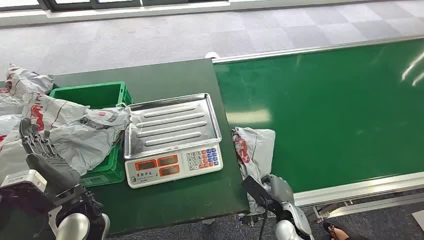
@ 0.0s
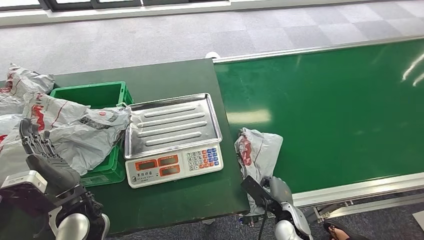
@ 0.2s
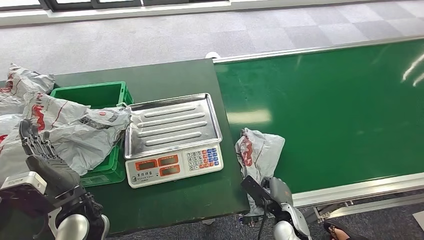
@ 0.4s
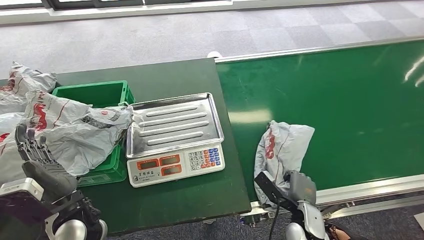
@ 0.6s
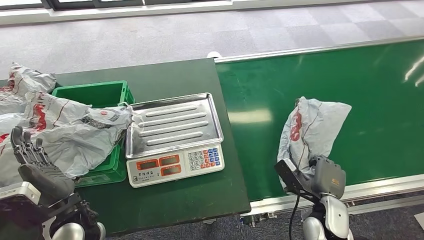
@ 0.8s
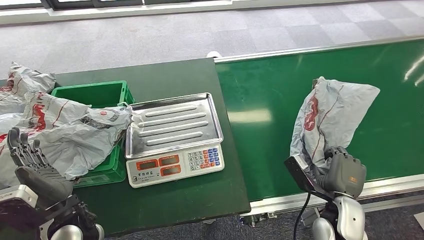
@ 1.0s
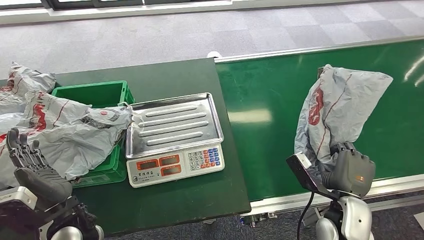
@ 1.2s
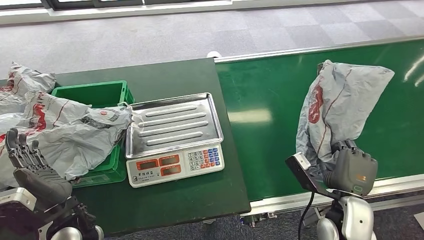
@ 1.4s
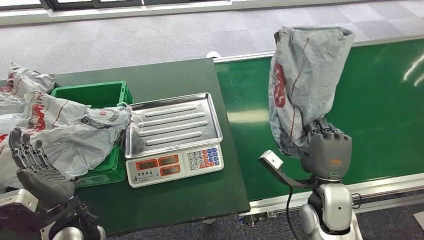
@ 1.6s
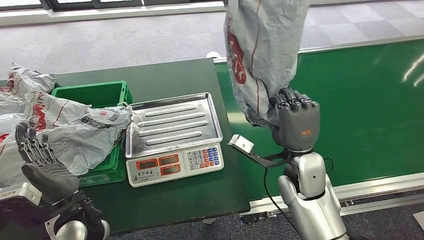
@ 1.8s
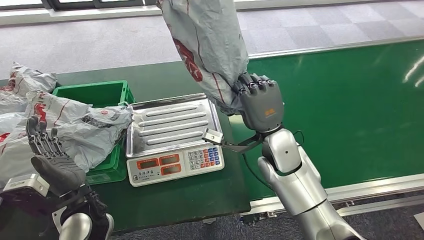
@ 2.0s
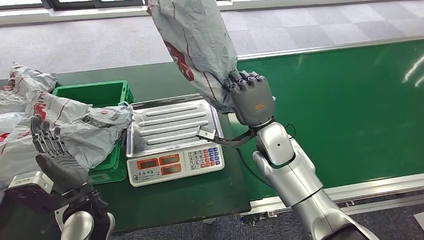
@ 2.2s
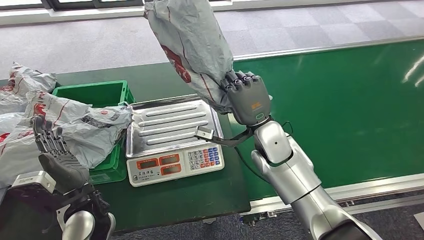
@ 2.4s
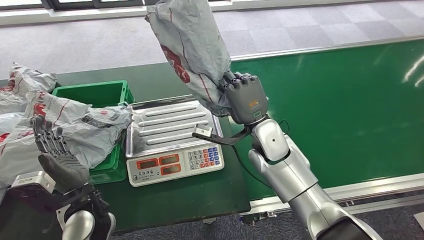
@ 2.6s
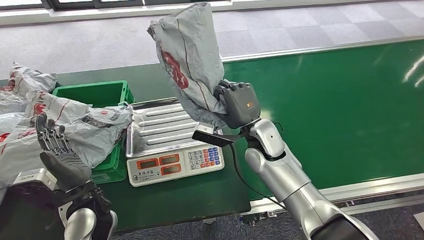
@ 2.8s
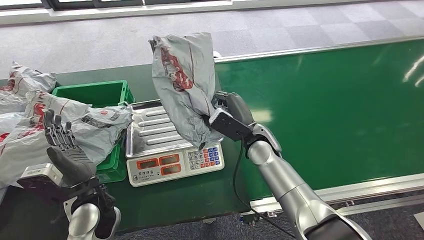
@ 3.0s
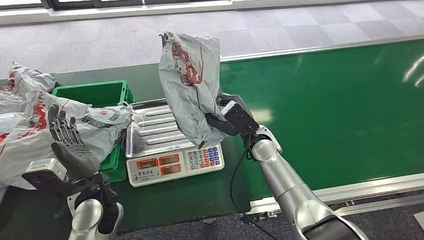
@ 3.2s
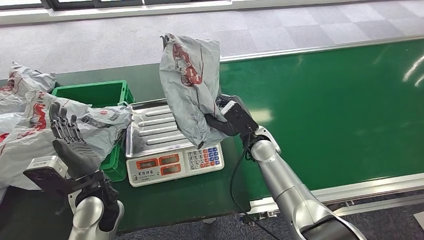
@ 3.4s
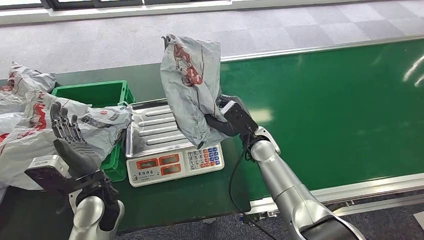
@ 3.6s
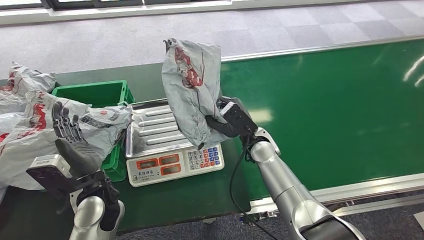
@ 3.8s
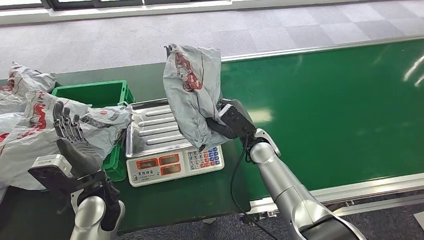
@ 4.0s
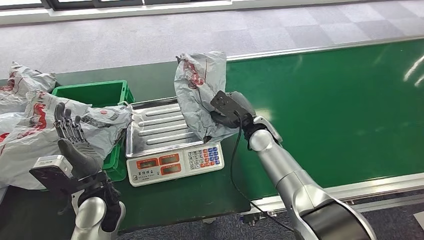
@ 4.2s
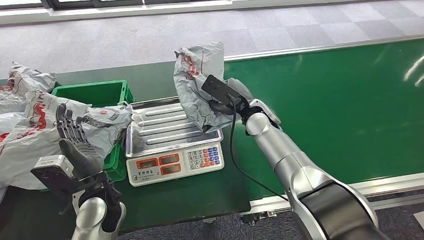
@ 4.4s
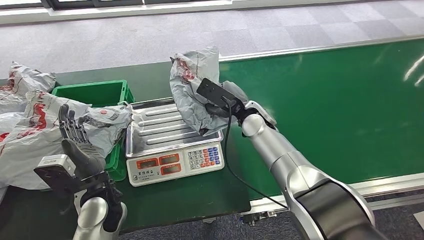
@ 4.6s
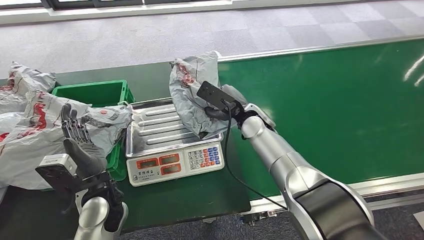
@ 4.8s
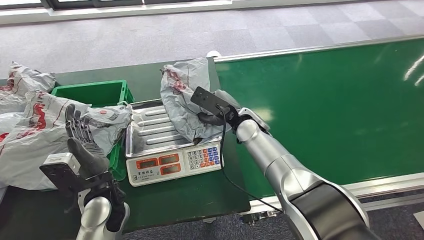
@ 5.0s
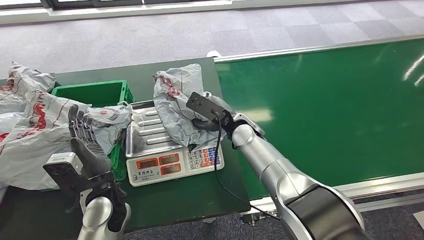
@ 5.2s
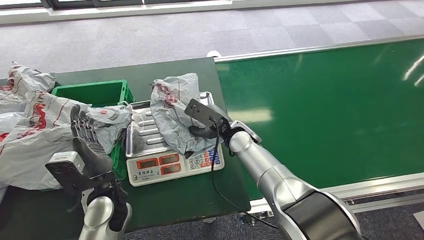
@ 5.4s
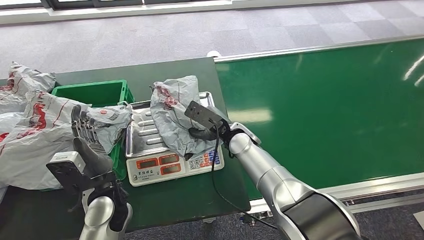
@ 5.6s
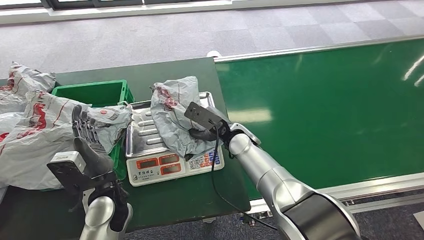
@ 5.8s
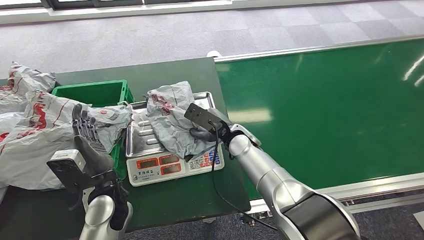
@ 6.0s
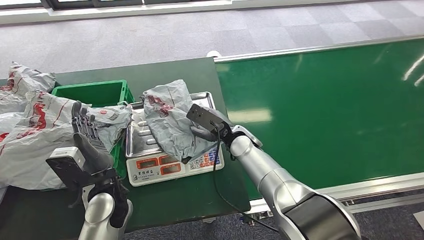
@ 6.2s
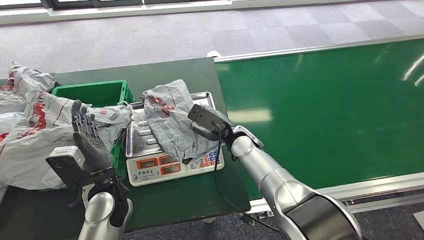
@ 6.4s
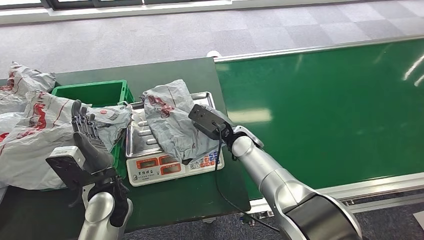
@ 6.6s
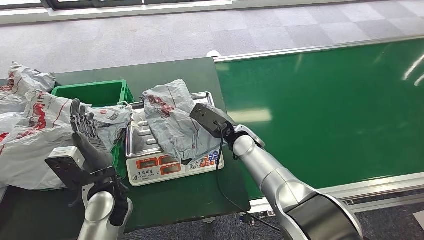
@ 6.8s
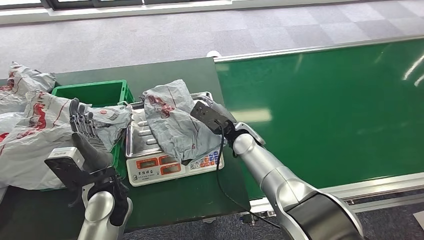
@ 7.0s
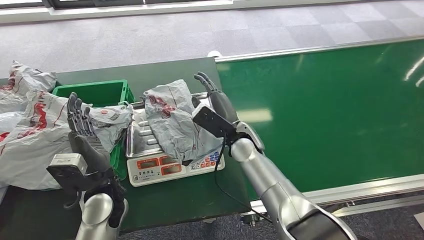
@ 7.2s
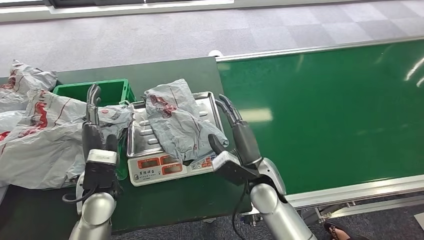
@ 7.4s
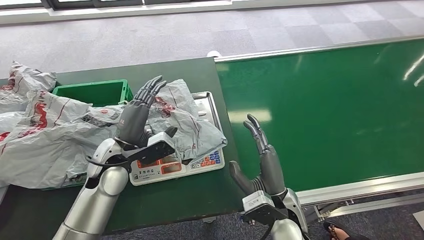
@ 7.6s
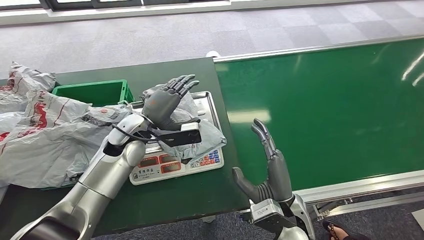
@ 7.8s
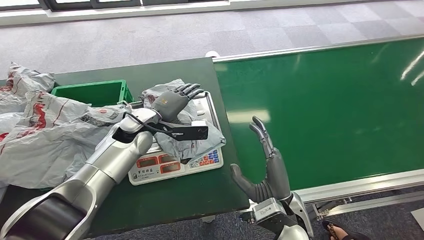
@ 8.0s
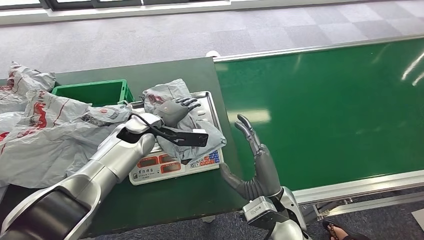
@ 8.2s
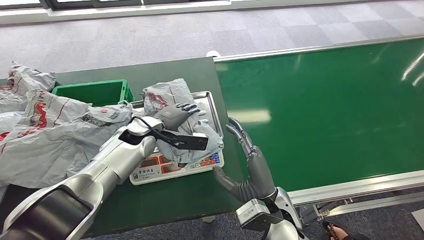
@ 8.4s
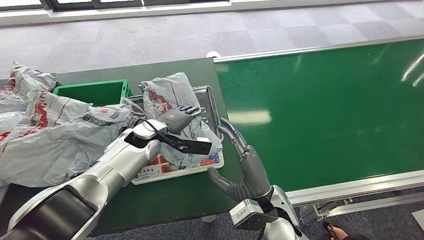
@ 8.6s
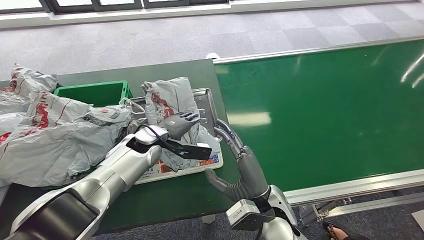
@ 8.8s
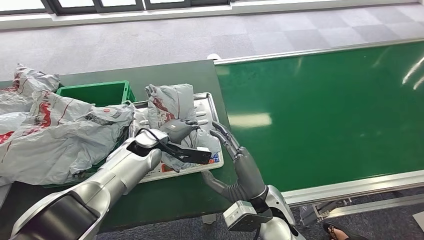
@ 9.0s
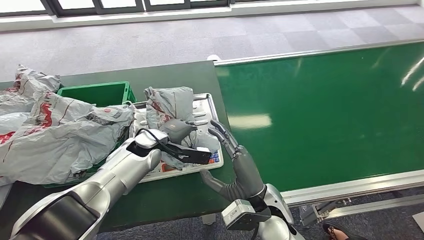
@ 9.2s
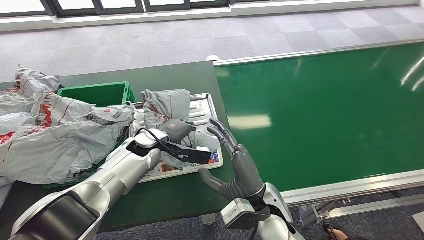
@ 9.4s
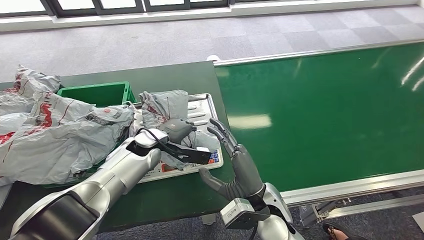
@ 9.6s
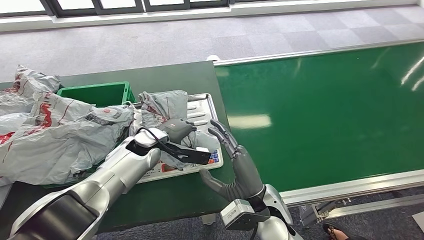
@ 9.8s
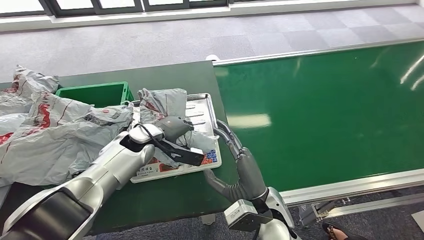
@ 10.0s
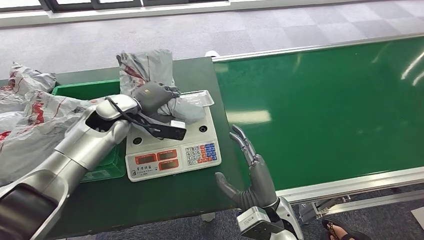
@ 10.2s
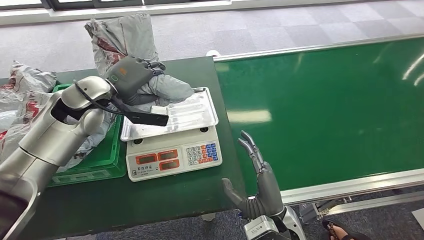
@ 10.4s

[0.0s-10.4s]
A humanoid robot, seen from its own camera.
Step, 0.0s to 1.4s: Pick up the package from the conveyor belt.
Step, 1.8s to 8.6s: Place the package onto the inbound machine.
3.0s to 4.4s: The right hand shifts by some 5 cm.

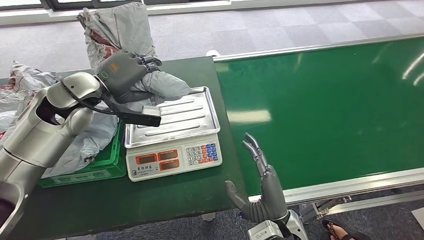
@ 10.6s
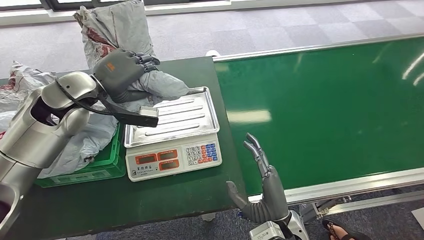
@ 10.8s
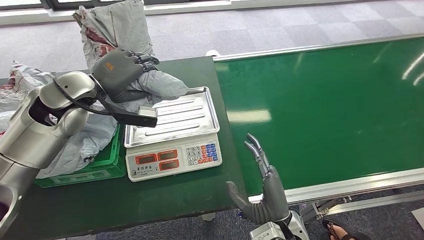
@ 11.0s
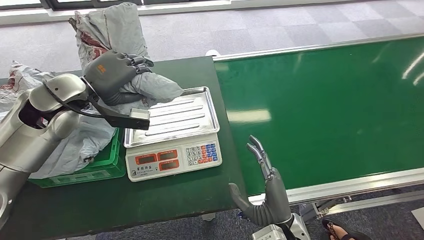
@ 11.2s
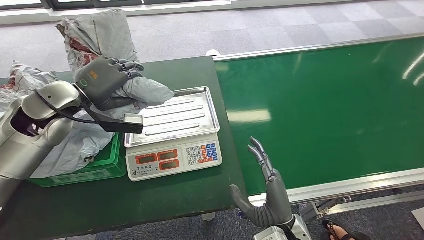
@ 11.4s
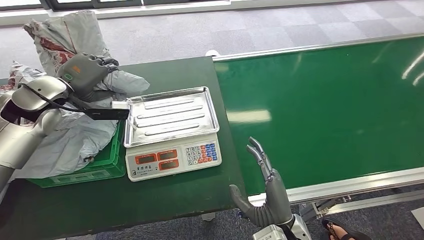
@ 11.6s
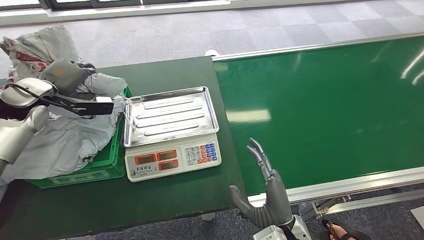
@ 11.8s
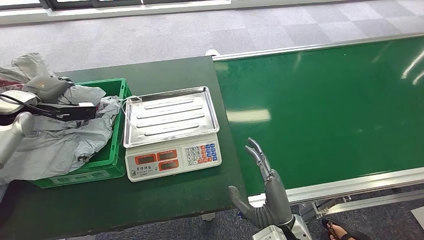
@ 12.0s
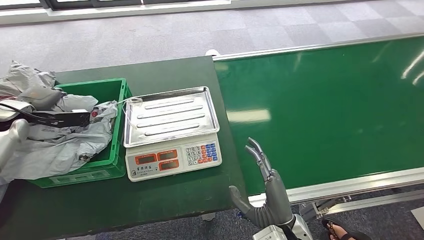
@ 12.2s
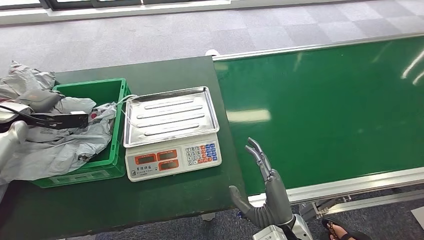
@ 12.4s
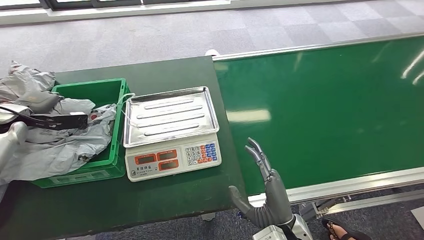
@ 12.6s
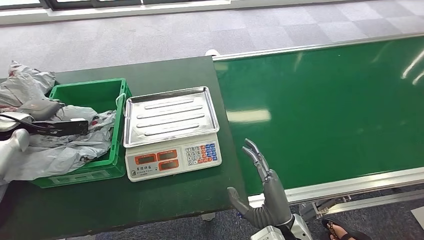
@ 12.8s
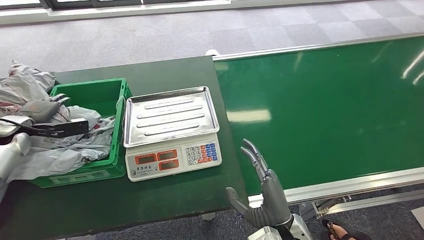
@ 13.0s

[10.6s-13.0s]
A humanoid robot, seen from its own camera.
Step, 11.2s to 13.0s: Place the package into the parcel locker.
11.8s to 13.0s: The left hand moves downward and to the left, about 15 cm.

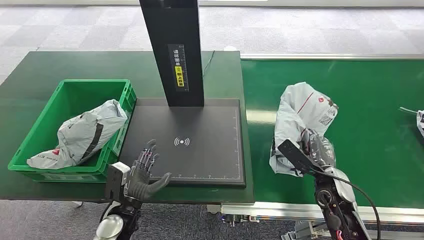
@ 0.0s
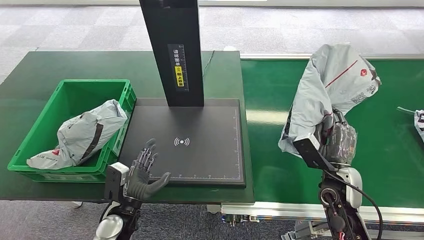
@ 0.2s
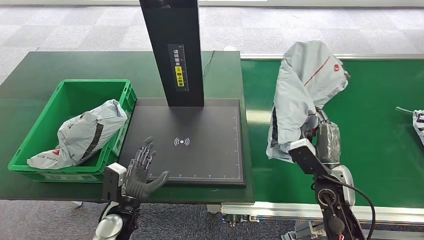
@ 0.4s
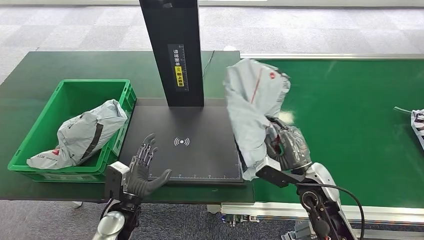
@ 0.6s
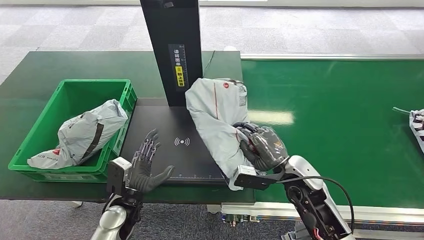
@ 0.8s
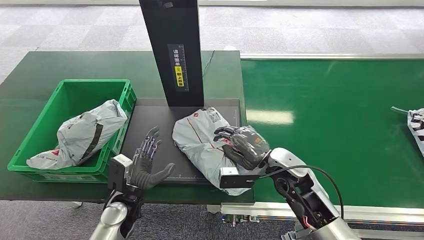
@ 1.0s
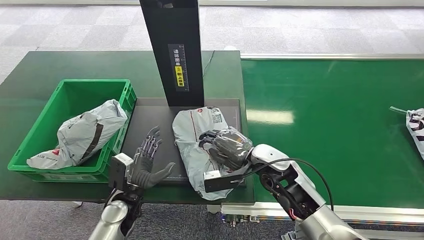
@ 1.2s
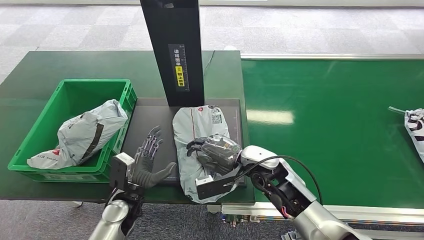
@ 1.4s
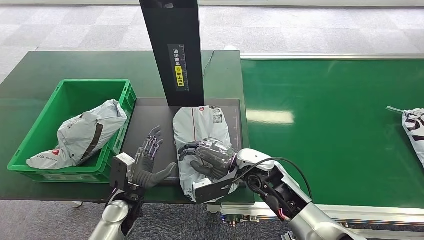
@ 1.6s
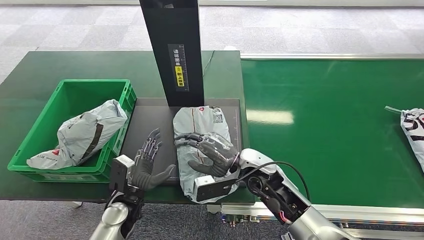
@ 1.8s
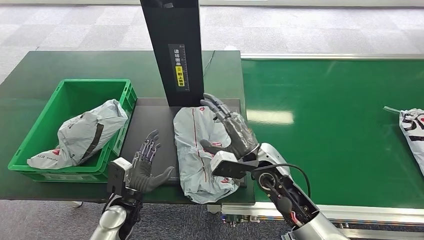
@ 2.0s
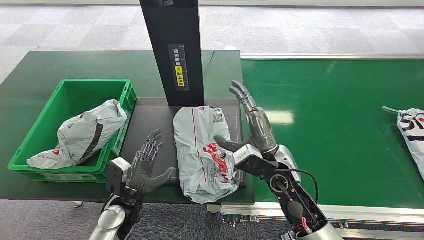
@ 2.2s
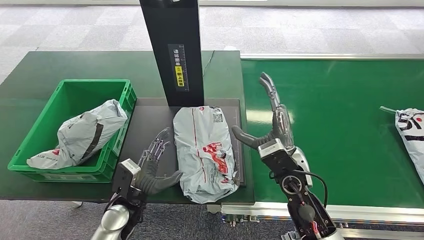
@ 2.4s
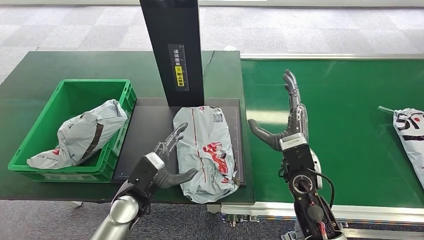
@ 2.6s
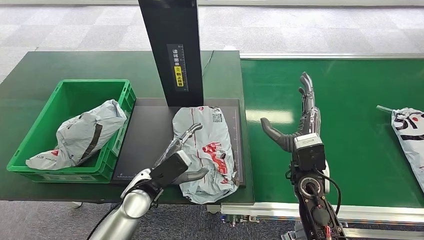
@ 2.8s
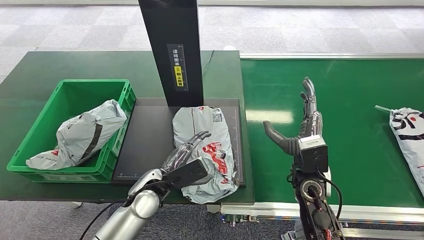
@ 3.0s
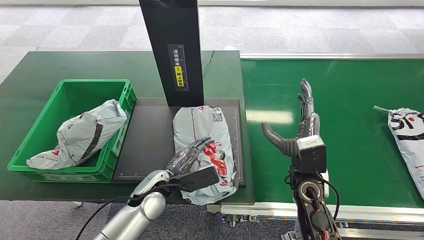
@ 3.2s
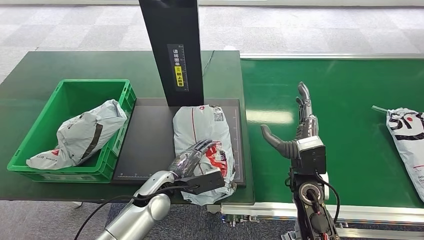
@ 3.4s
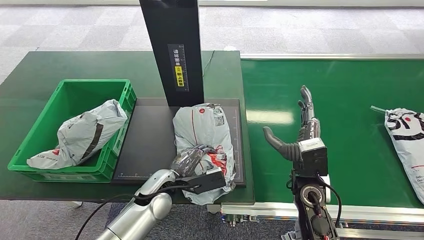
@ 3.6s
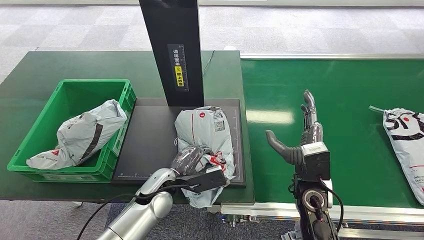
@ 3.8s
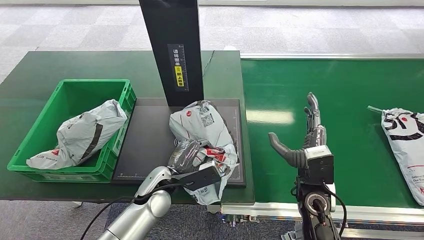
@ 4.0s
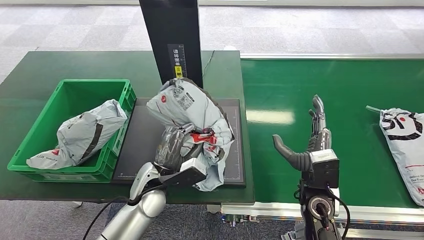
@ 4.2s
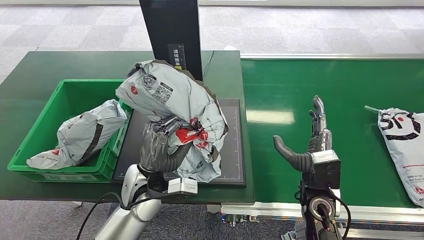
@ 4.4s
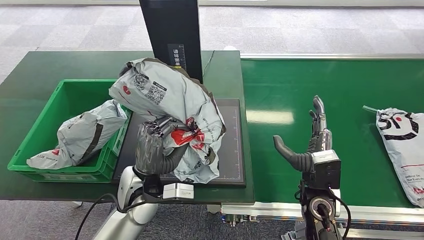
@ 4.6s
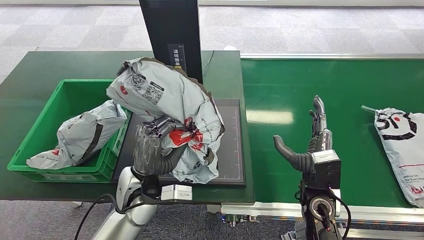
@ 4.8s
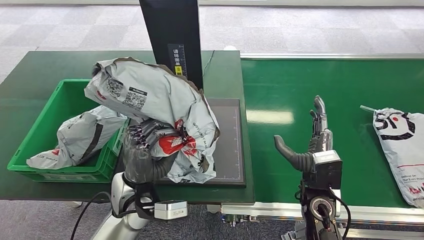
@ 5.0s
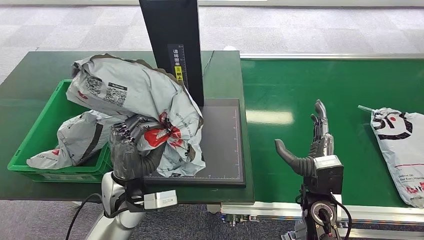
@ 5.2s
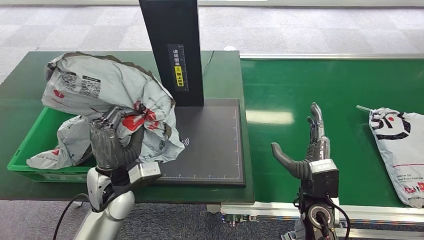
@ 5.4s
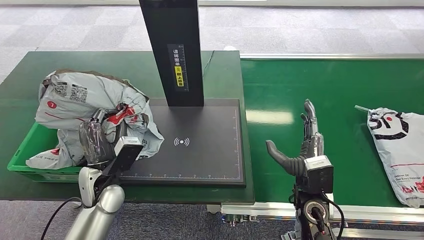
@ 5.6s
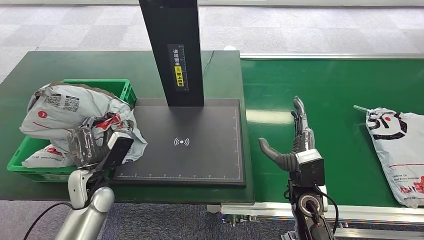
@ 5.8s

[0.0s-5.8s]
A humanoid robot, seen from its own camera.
Step, 0.0s to 0.4s: Pick up the package from the conveyor belt.
Step, 4.8s to 5.0s: Pick up the package from the inbound machine.
1.4s to 2.8s: The left hand goes roughly 5 cm upward and to the right. Meanwhile the right hand is displaced to the right by some 5 cm.
2.8s to 4.4s: The right hand moves roughly 5 cm.
